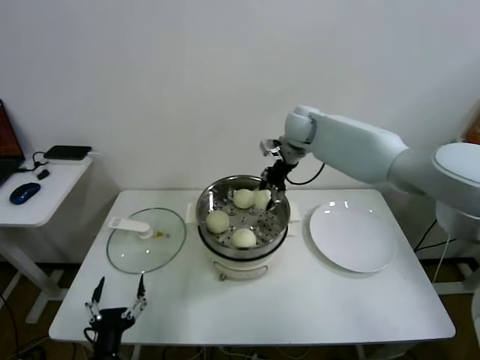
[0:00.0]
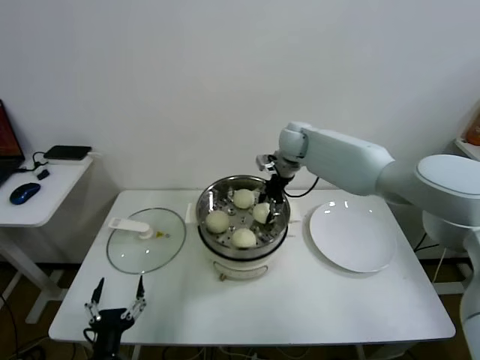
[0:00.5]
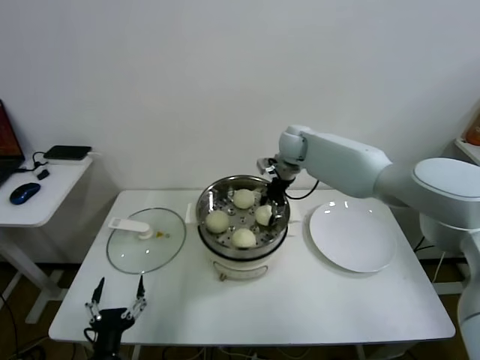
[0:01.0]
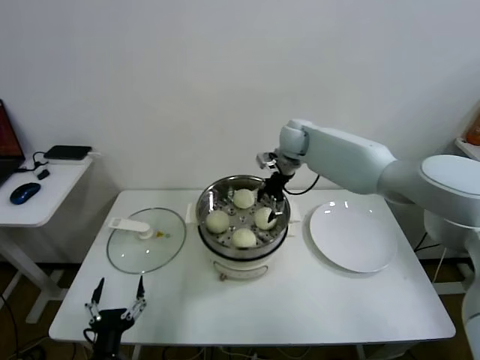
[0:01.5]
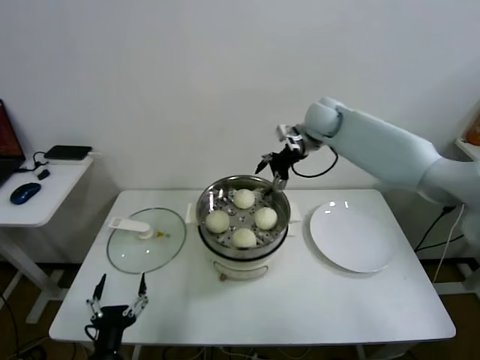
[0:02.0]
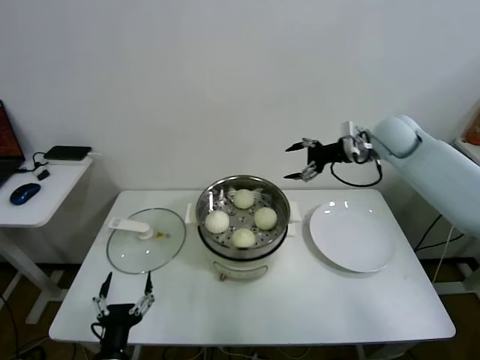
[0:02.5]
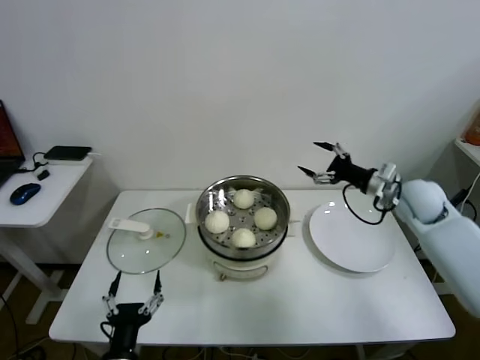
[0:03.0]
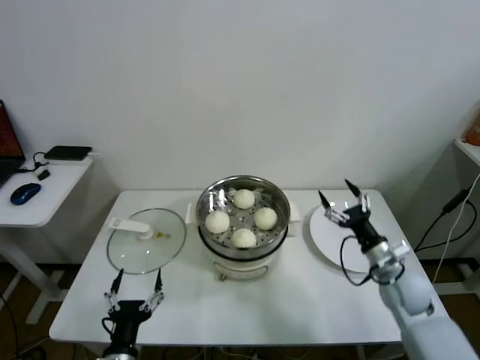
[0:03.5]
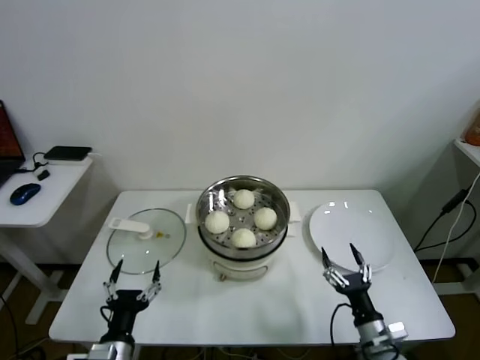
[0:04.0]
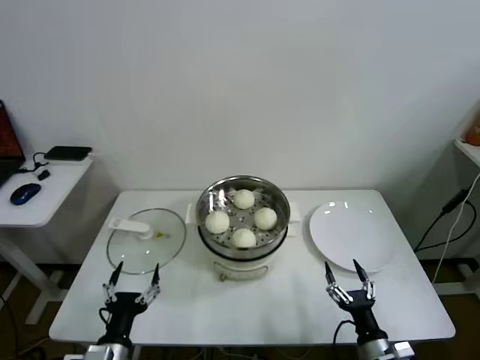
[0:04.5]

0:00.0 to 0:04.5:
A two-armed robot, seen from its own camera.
Task of the whole recording: take steamed baozi put them in steamer.
0:00.0 to 0:02.0: The right gripper opens up.
0:02.0 to 0:04.5: The right gripper goes roughly 60 cm backward and downward.

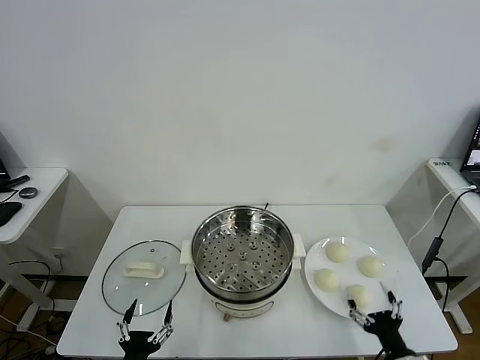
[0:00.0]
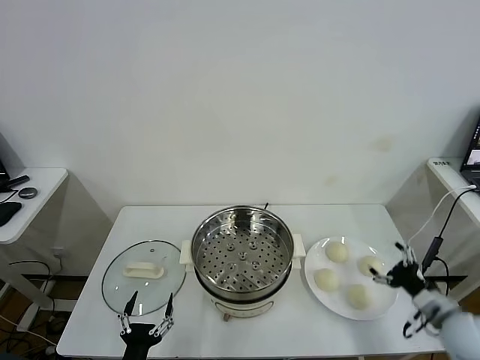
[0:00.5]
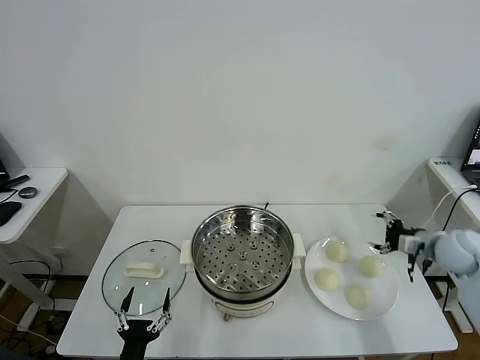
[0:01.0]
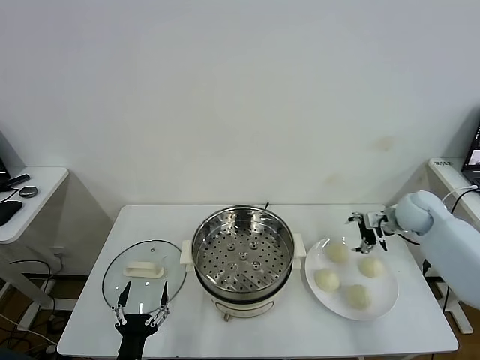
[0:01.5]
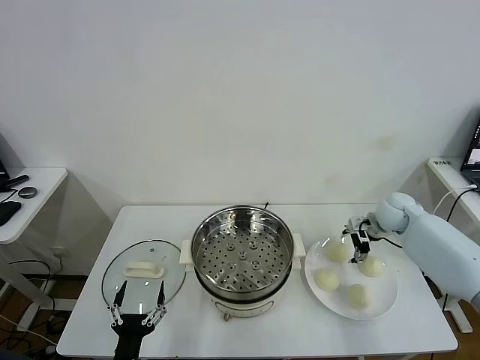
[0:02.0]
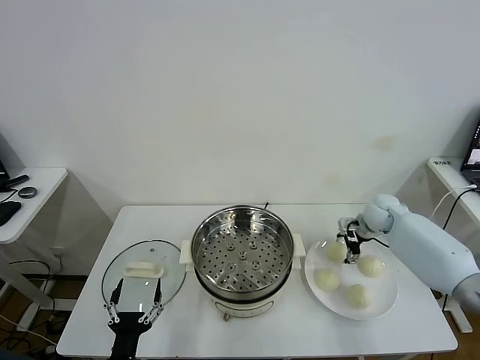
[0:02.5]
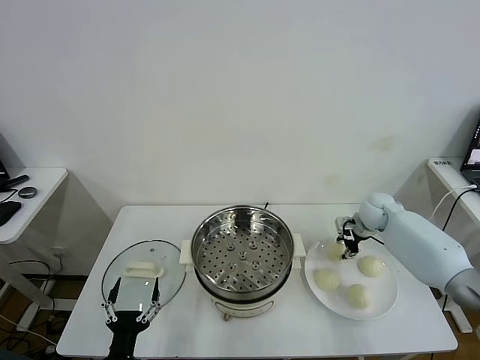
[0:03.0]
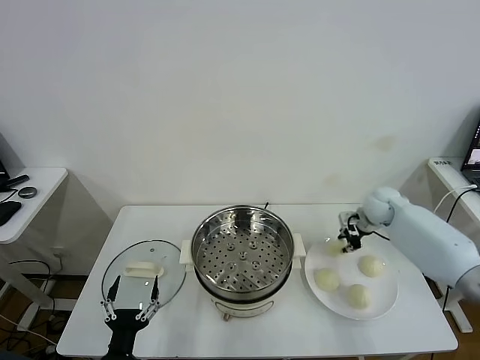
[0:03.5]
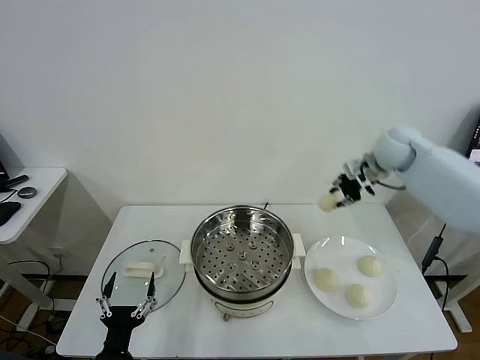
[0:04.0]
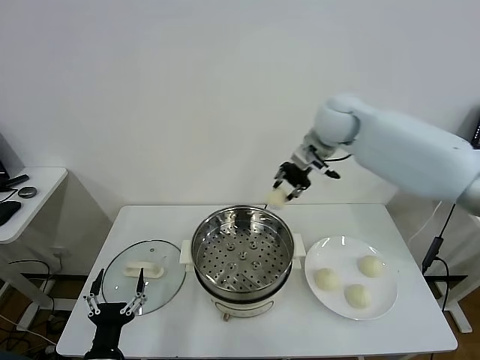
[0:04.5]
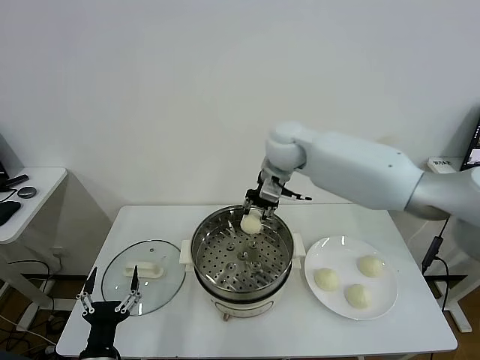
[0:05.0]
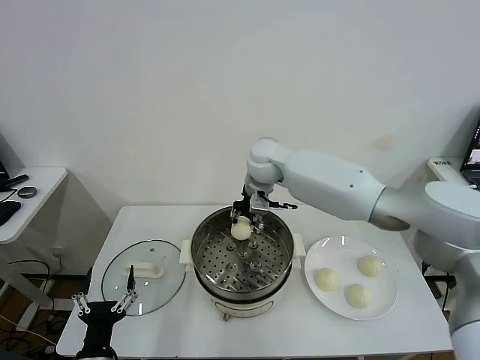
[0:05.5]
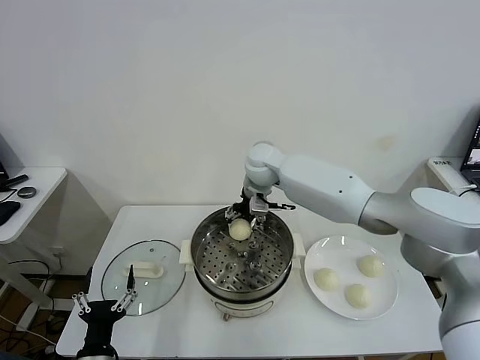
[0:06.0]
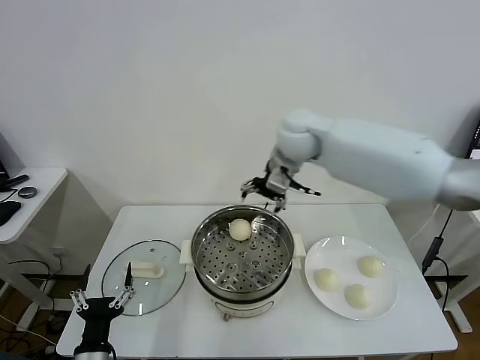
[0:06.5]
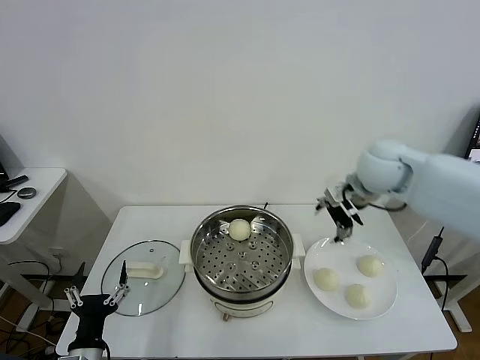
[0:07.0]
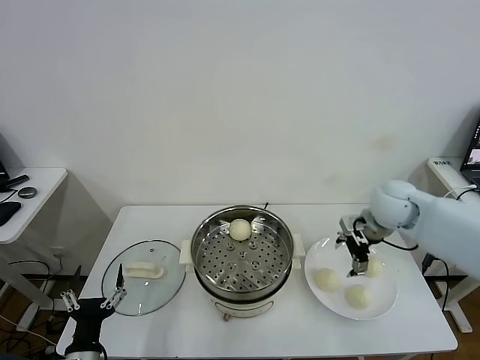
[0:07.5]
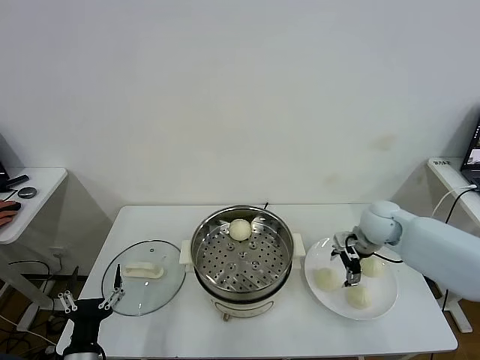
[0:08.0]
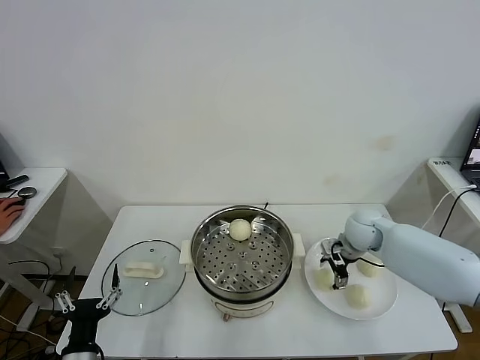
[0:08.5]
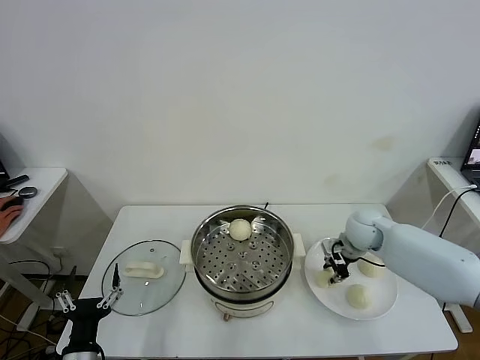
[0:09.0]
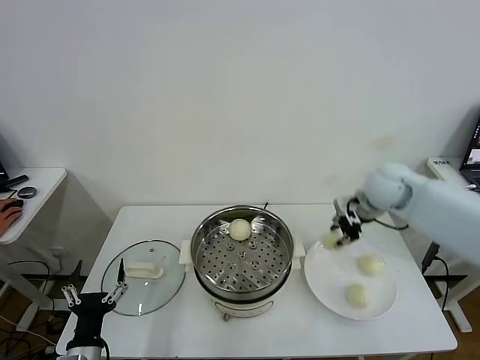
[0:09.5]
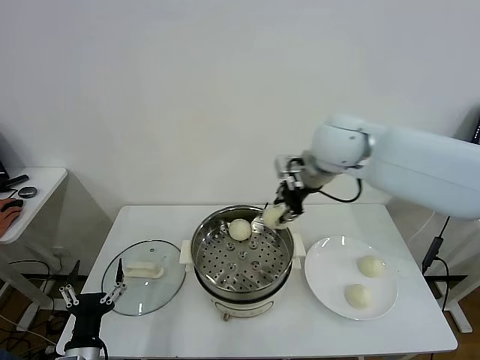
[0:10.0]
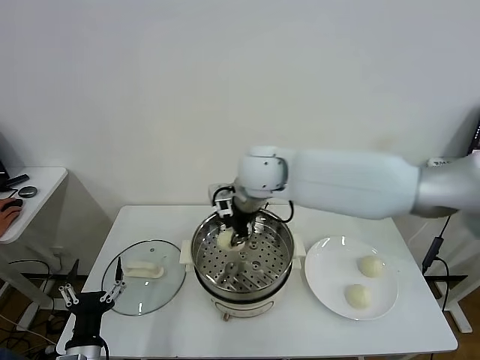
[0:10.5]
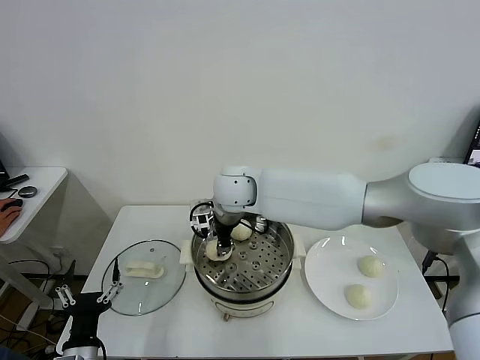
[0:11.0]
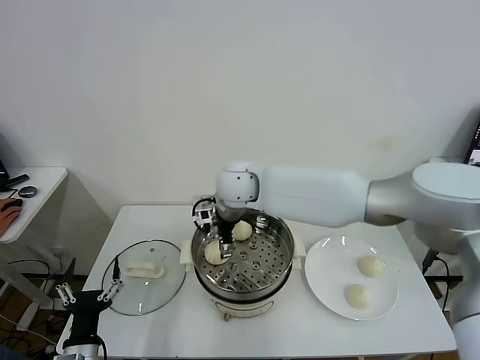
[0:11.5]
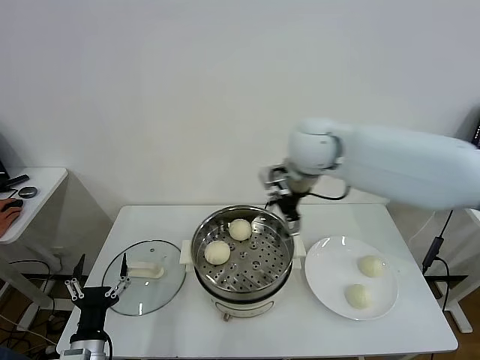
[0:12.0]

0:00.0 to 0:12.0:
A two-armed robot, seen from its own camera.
Task of the whole recording: take steamed baozi put them in steamer.
Step, 0:00.0 to 0:02.5: Grasp the baozi in the plate with right gripper.
Step, 0:03.5 to 0:06.0: Place the baozi on the steamer with right gripper.
Step, 0:06.5 to 0:08.5: Grasp the baozi in the plate with right gripper.
Step, 0:09.0 to 0:11.5: Place the baozi on the steamer with right gripper.
0:02.0 to 0:04.0: The right gripper heads upward, covering roughly 20 cm, and closes up.
0:04.0 to 0:06.0: The right gripper shifts about 30 cm to the left, and opens its fingers.
0:06.0 to 0:08.0: The right gripper heads to the right, covering approximately 30 cm.
0:08.0 to 0:10.0: The right gripper heads upward and to the left, covering some 25 cm, and closes.
0:10.0 to 0:12.0: The right gripper moves roughly 20 cm to the left and comes back, and opens up.

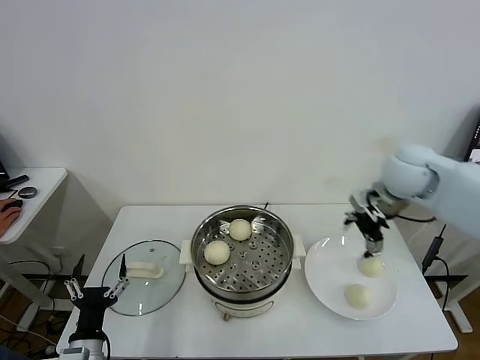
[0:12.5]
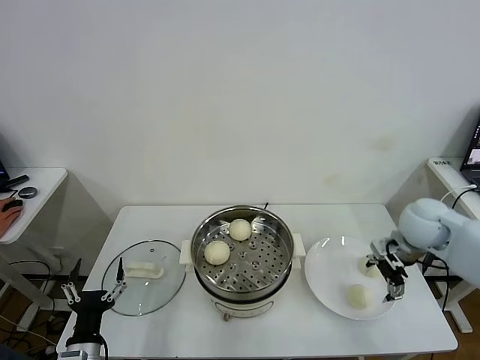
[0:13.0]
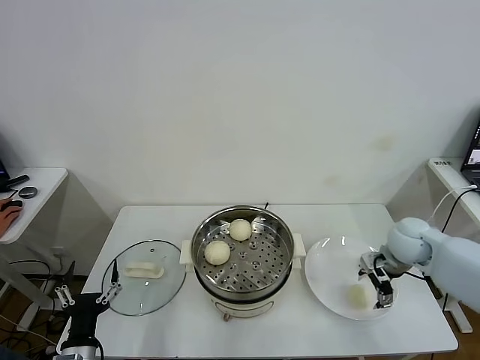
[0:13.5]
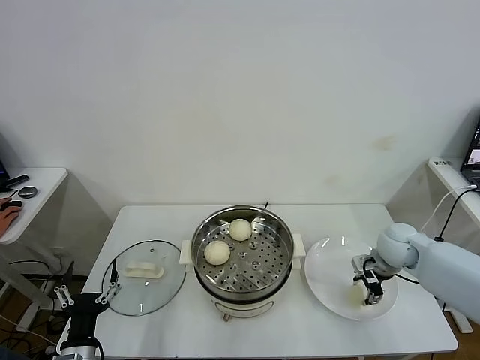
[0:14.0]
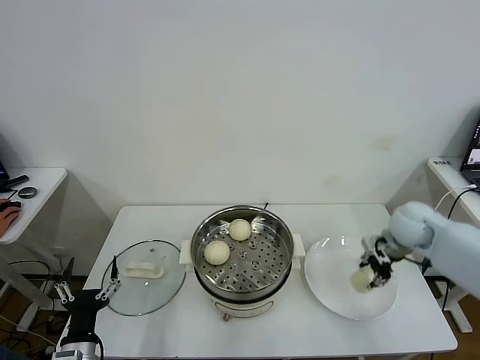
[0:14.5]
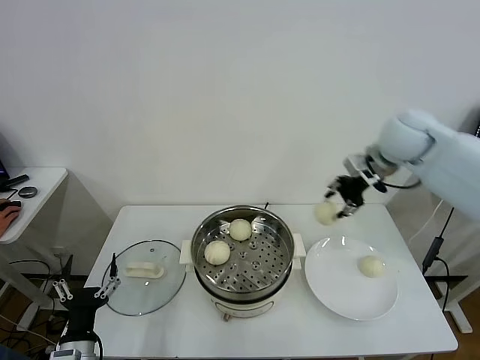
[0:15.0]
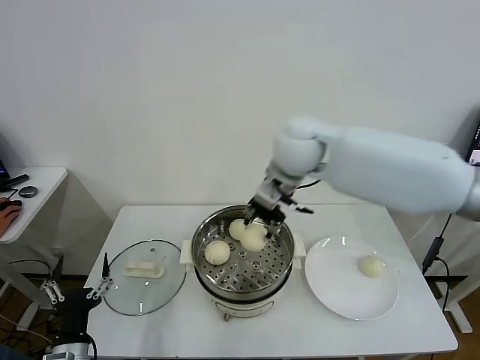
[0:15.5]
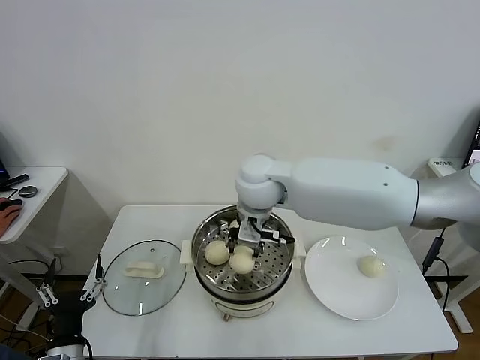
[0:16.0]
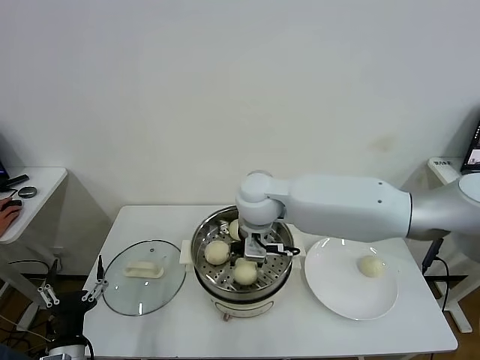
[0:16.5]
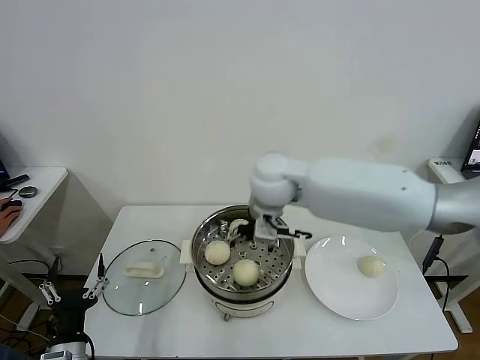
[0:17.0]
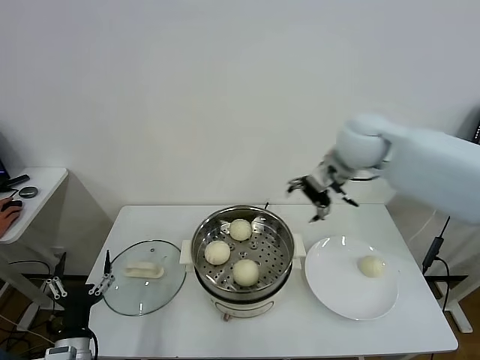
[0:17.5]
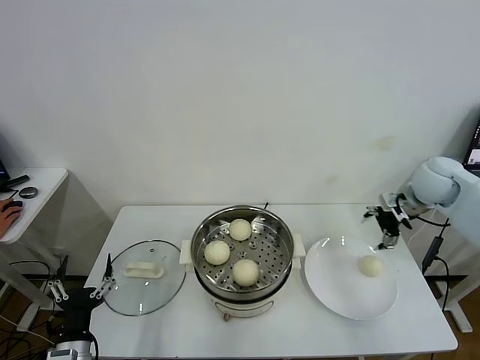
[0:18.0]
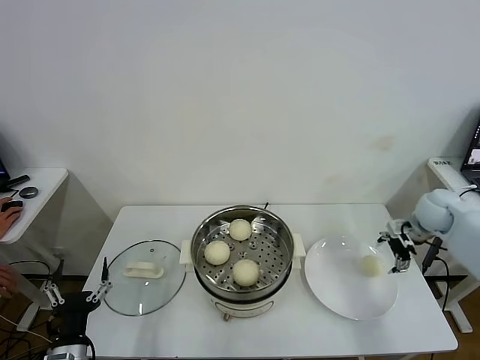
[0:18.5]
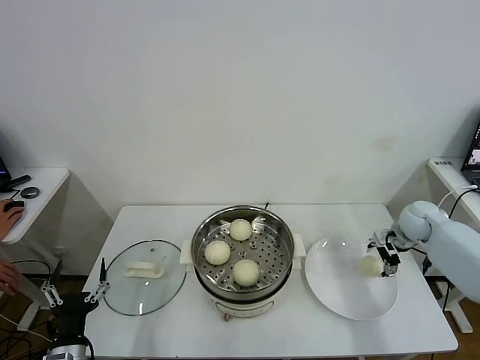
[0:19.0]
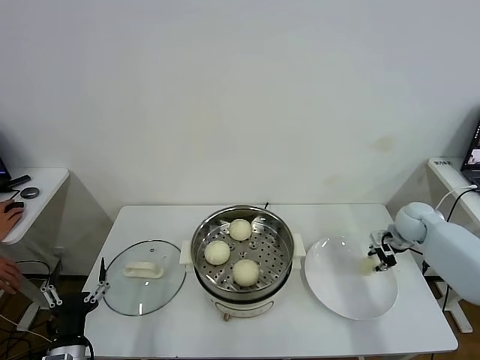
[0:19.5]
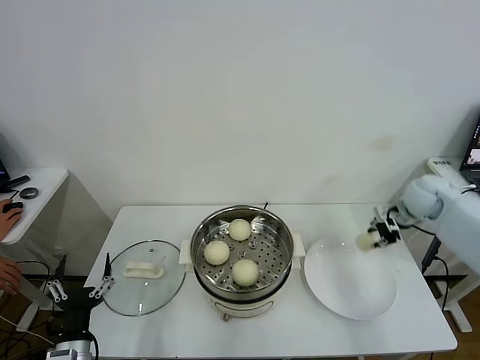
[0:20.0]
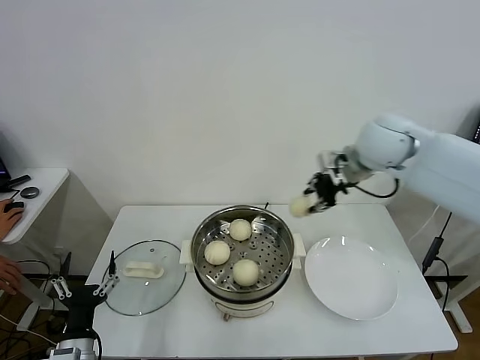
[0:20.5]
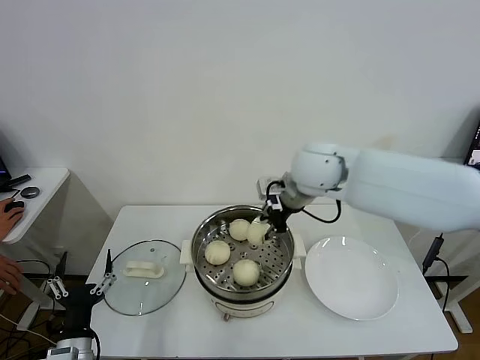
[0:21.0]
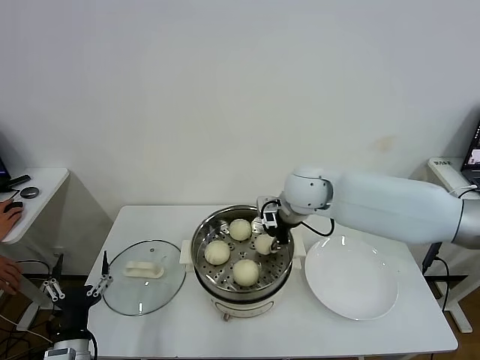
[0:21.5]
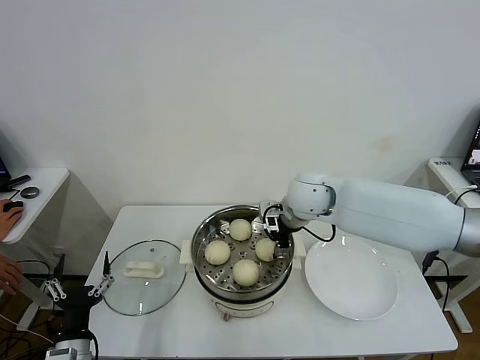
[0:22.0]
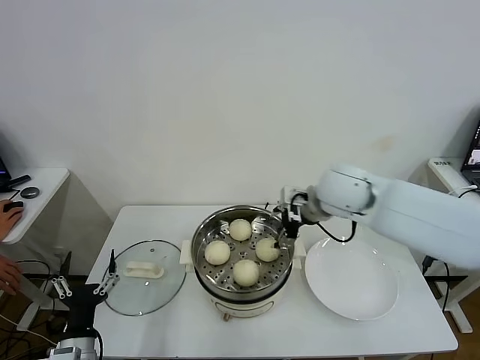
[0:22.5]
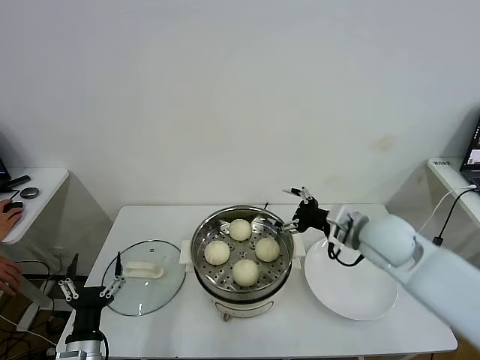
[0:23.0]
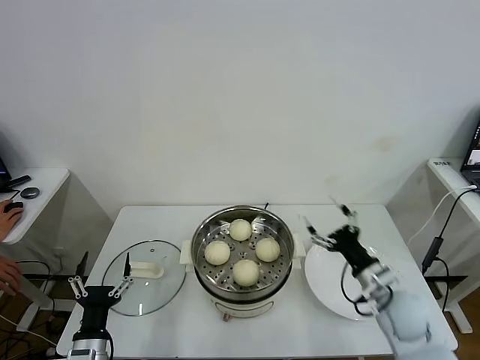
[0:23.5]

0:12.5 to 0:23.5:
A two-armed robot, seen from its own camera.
Task of the whole recording: take steamed baozi put them in steamer.
Step, 0:12.5 to 0:14.0: Grasp the baozi in the plate with right gripper.
Step, 0:14.5 to 0:16.5: Place the baozi on the steamer with right gripper.
Step, 0:17.0 to 0:19.0: Grasp the baozi in the plate with right gripper.
Step, 0:19.5 to 0:22.0: Place the baozi on the steamer with right gripper.
0:12.5 to 0:14.5: The right gripper travels downward and to the right by about 15 cm, and closes.
0:14.5 to 0:16.0: The right gripper goes about 35 cm to the left.
0:16.0 to 0:18.0: The right gripper goes about 40 cm to the right, and opens up.
0:18.0 to 0:20.0: The right gripper moves downward, some 5 cm, and closes its fingers.
0:20.0 to 0:21.5: The right gripper moves to the left, roughly 30 cm.
0:21.5 to 0:23.5: The right gripper goes about 30 cm to the right, backward and downward, and opens.
